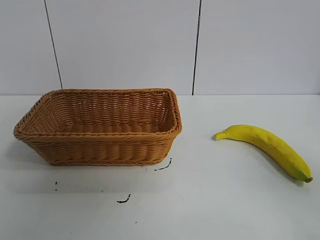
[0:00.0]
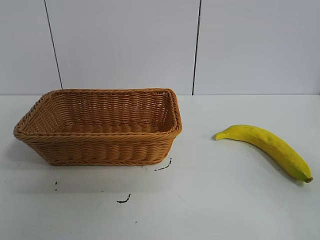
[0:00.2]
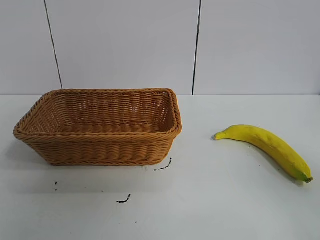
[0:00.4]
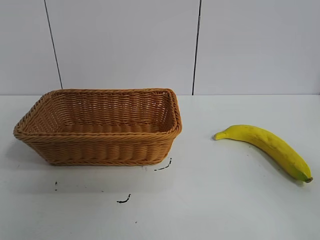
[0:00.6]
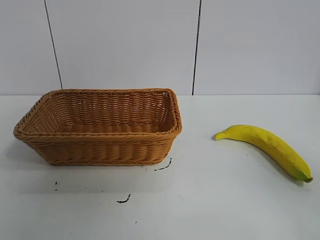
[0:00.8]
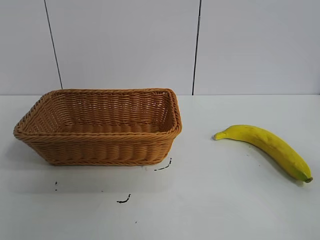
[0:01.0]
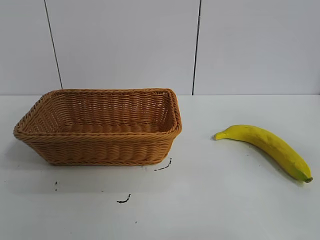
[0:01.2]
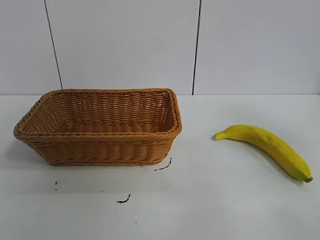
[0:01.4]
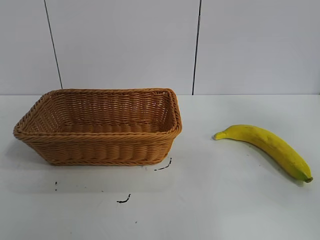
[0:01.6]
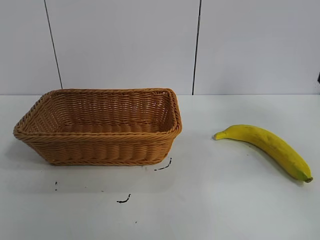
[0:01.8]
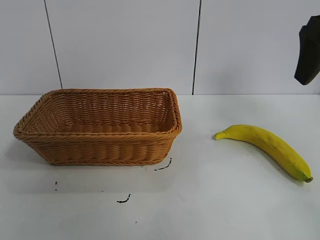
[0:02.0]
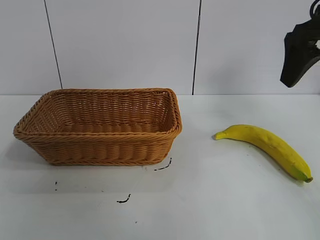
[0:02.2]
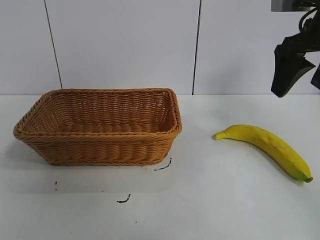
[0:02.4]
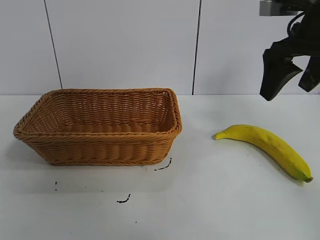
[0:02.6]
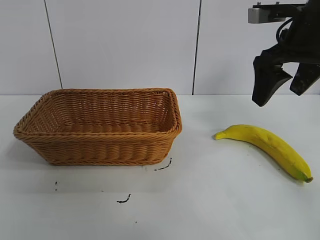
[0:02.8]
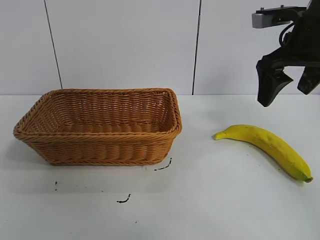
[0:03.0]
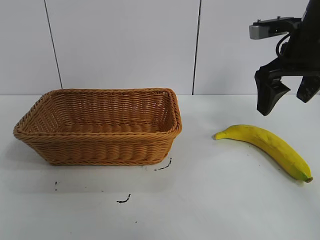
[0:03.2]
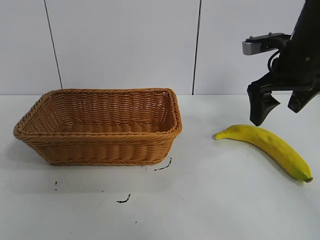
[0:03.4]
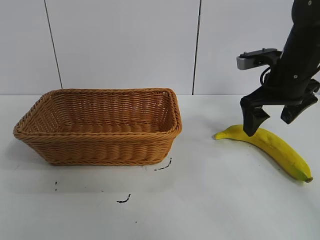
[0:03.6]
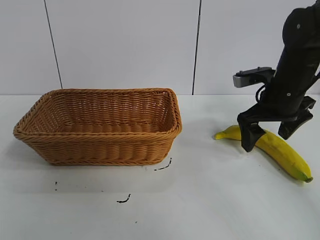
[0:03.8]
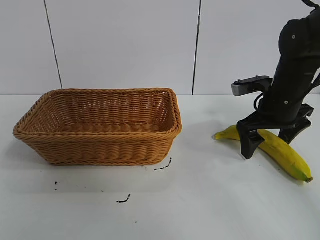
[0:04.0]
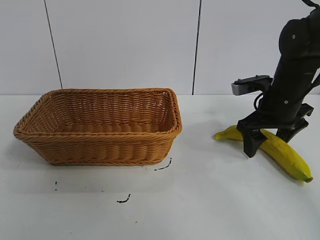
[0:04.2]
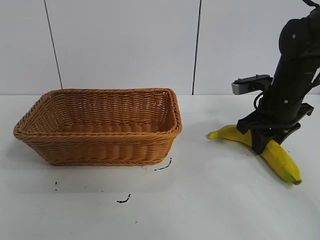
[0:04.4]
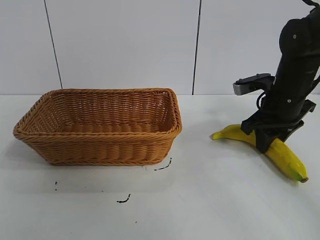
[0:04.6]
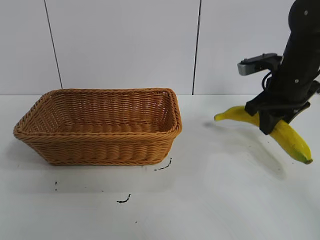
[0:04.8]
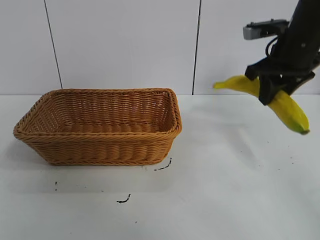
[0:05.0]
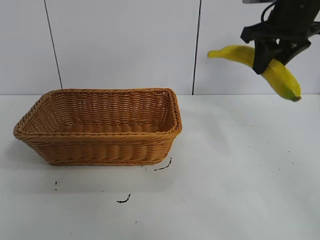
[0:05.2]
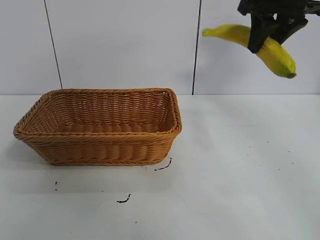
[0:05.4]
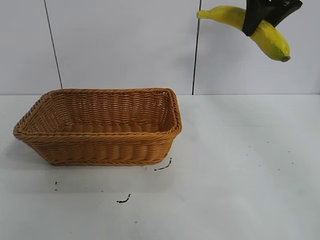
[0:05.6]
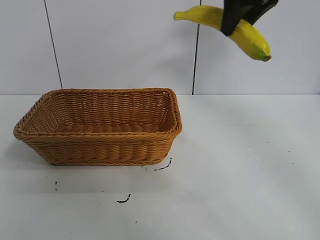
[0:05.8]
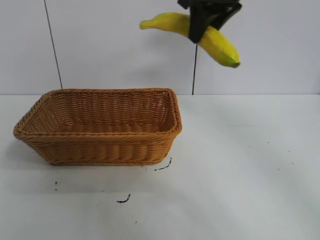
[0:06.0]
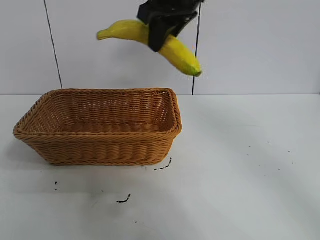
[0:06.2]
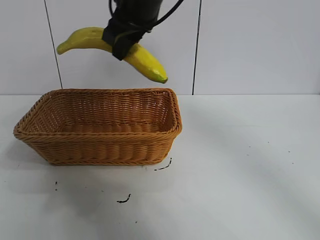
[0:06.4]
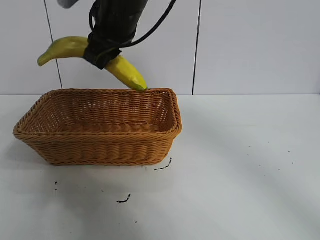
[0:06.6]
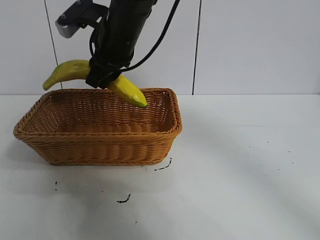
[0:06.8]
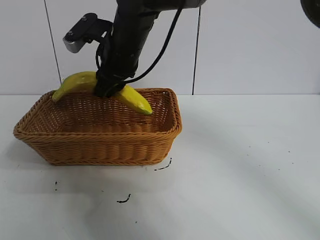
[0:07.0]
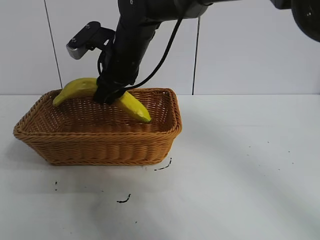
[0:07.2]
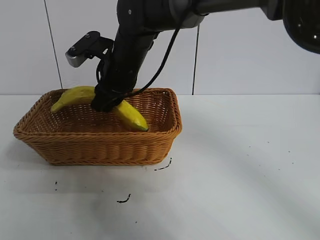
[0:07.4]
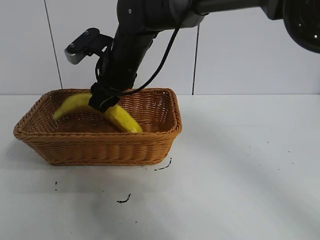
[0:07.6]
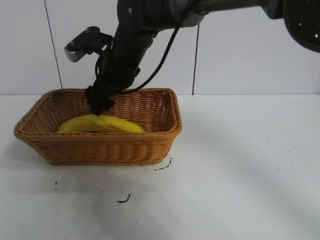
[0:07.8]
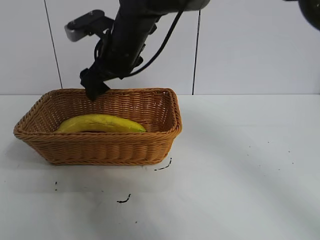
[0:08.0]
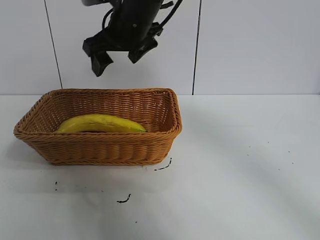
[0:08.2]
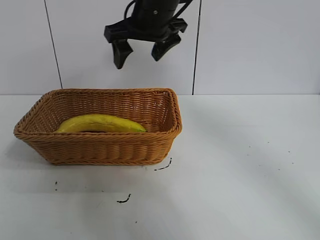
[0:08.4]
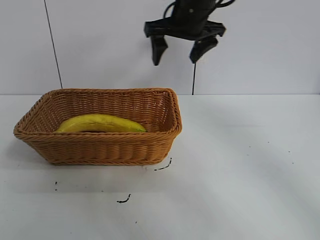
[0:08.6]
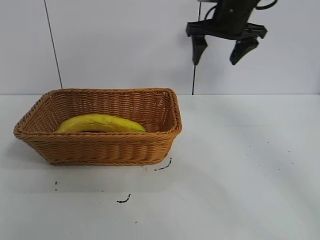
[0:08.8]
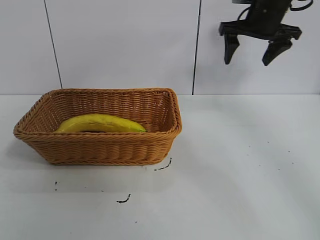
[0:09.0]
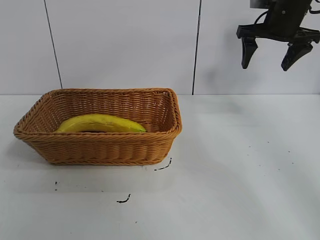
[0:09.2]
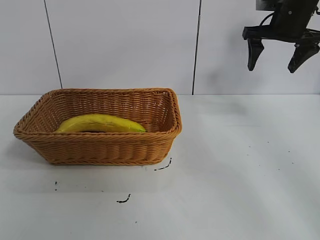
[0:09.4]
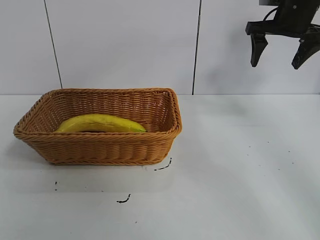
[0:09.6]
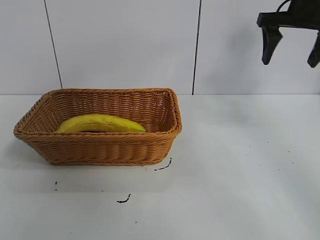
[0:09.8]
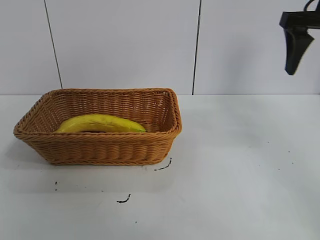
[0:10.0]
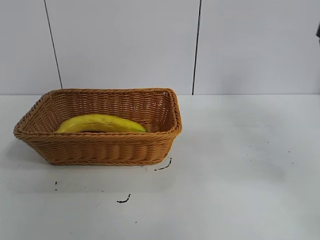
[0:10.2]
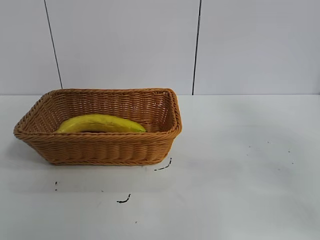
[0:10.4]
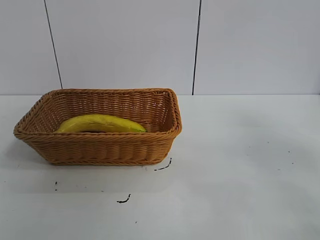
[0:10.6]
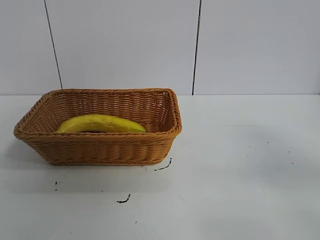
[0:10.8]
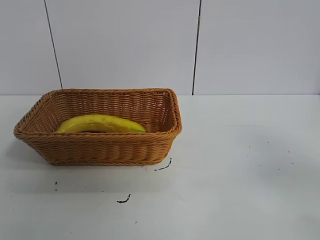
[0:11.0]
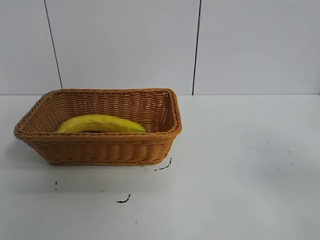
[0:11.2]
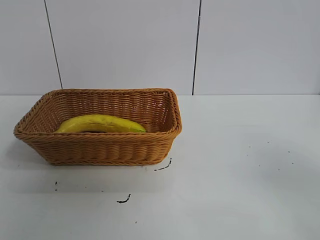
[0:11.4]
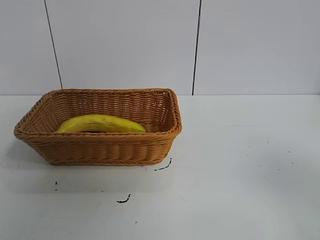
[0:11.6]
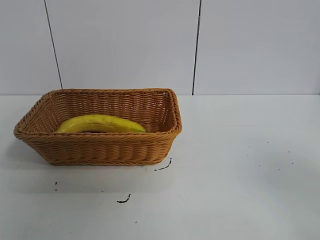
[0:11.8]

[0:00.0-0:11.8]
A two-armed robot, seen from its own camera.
Task of the whole recording: pick up the banana and put it into the basket.
Step, 0:01.0 to 0:04.4: Grasp the banana with right gripper.
Step, 0:04.6 to 0:07.8: Place the banana in the basket with right gripper.
